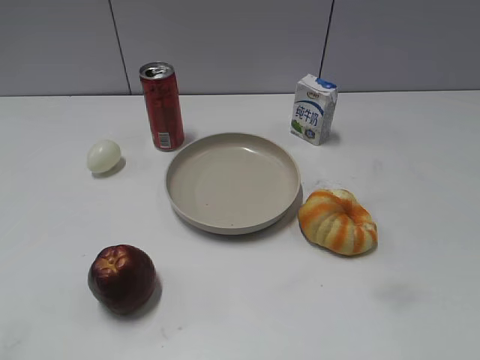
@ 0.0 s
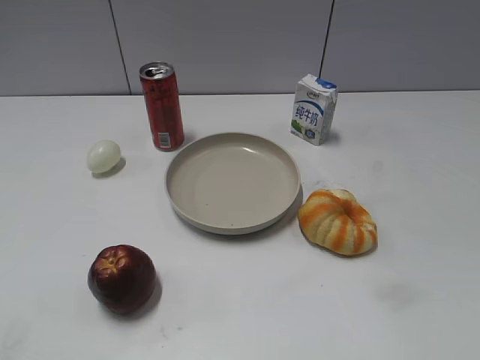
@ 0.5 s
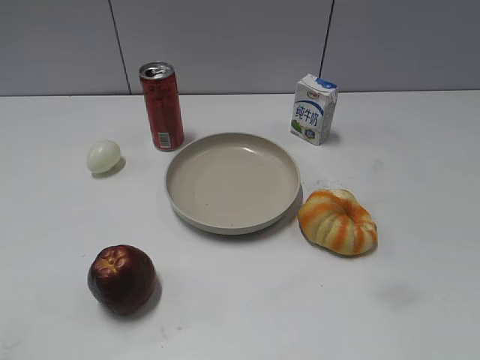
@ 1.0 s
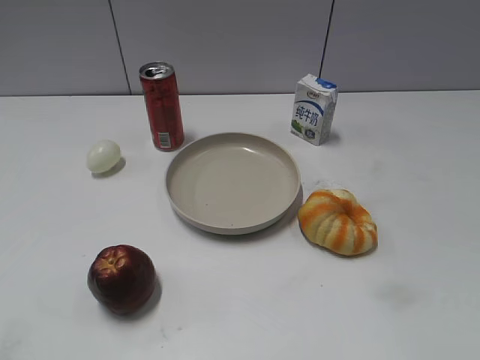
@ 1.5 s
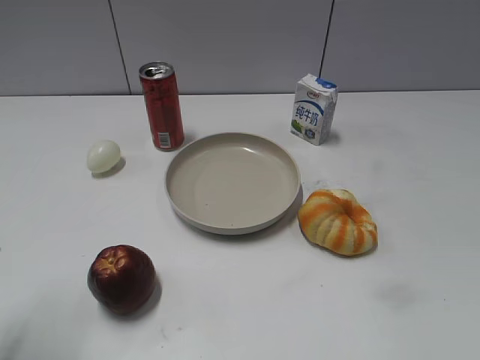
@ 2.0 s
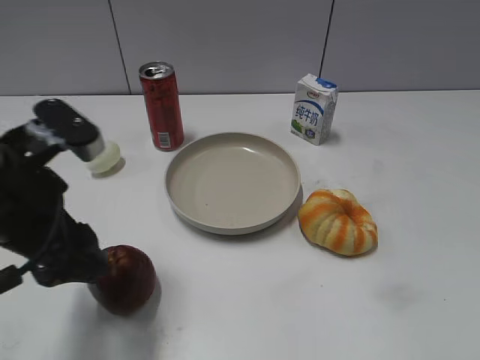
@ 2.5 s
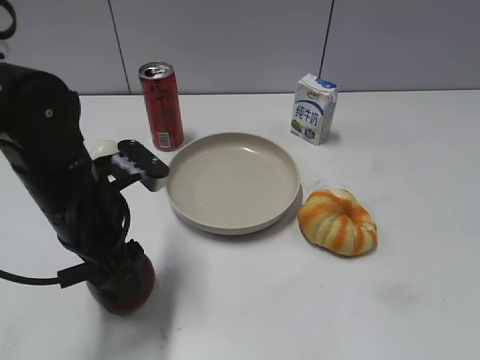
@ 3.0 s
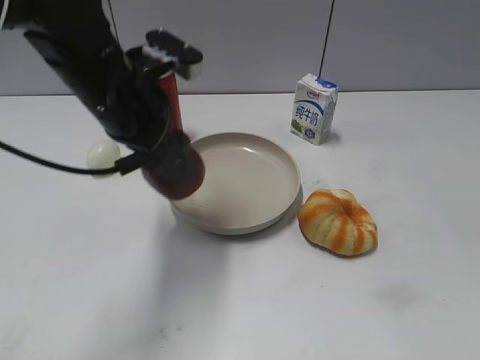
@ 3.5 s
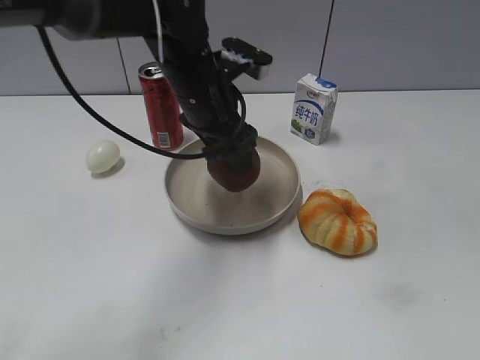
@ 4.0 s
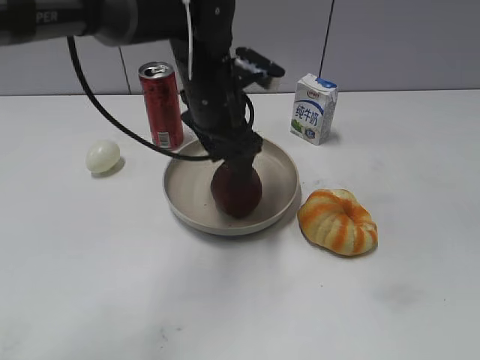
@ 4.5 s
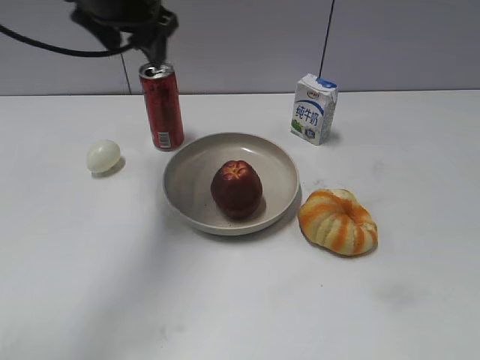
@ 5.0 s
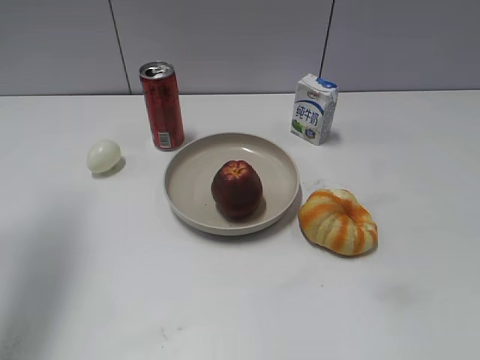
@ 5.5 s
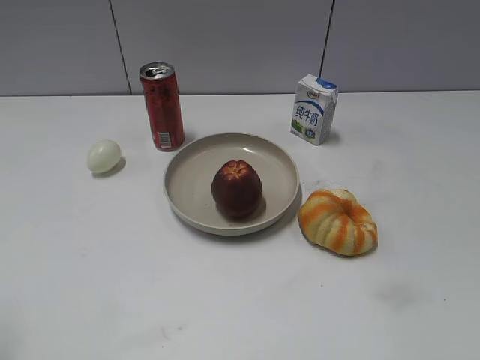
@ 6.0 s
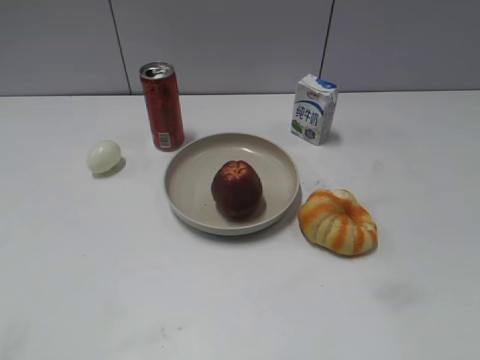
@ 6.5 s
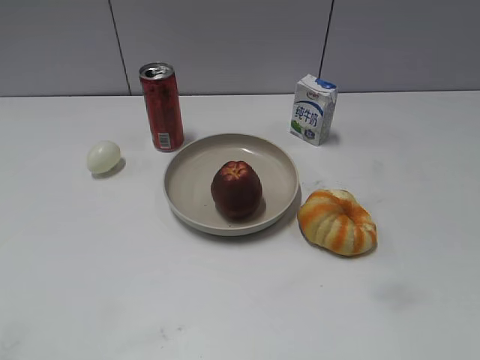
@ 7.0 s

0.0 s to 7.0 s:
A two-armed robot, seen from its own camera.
Step, 2.5 to 3.0 s: Grasp the apple with left gripper.
Step, 3.5 to 4.5 s: Place the apple on the plate with left gripper.
0.0 to 2.0 s: The left gripper goes some 20 cm forward and to the right.
2.0 to 3.5 s: The left gripper moves forward and to the right, roughly 25 cm.
3.5 to 5.0 s: The left gripper goes about 20 cm to the left and upward.
5.0 to 7.0 s: The left gripper moves backward, roughly 35 cm.

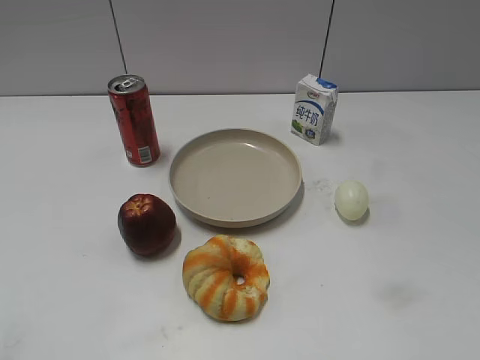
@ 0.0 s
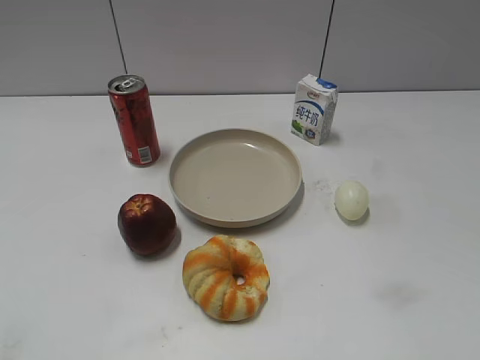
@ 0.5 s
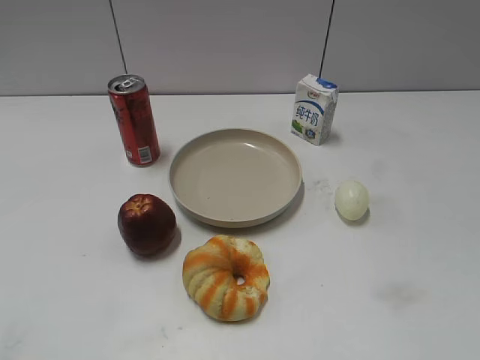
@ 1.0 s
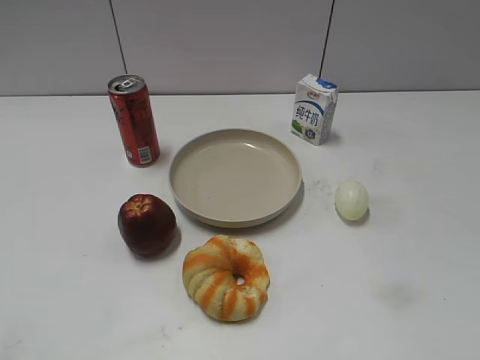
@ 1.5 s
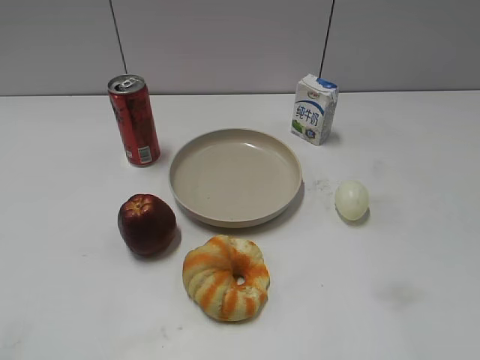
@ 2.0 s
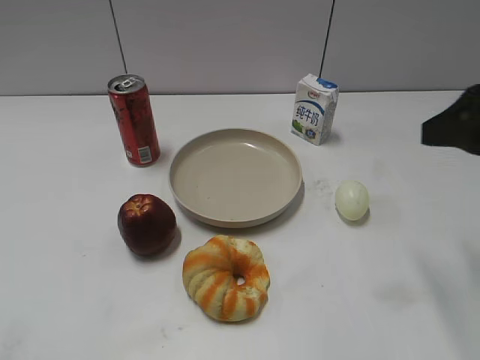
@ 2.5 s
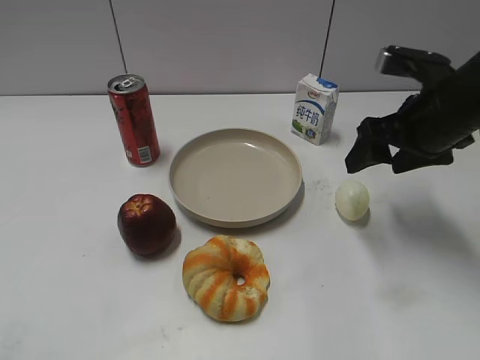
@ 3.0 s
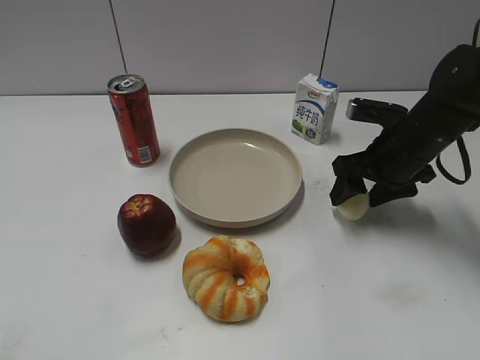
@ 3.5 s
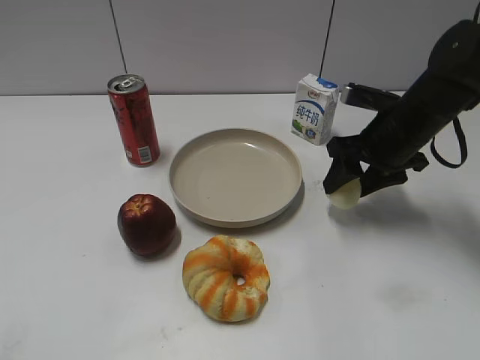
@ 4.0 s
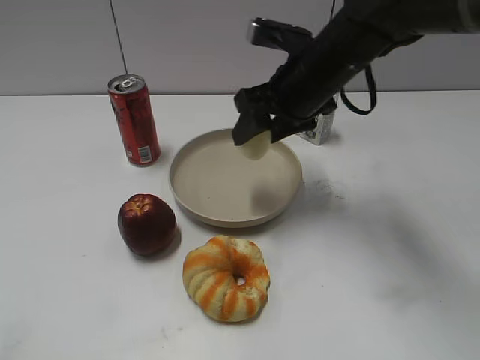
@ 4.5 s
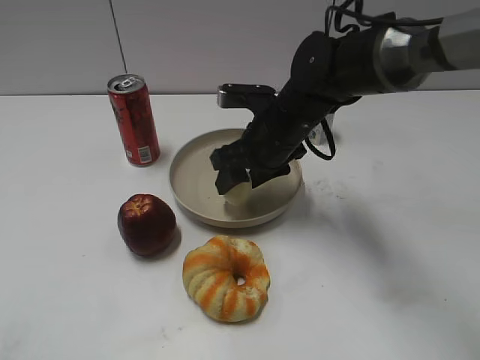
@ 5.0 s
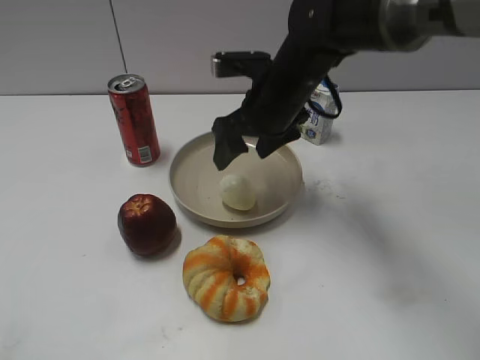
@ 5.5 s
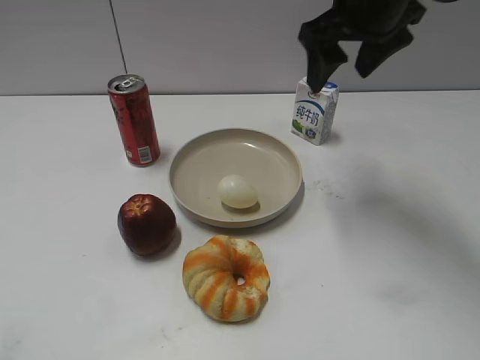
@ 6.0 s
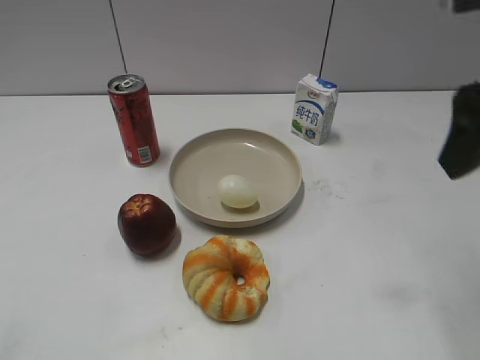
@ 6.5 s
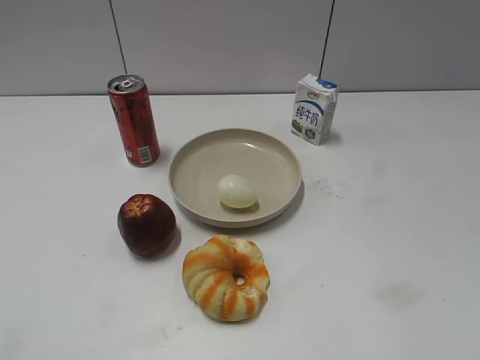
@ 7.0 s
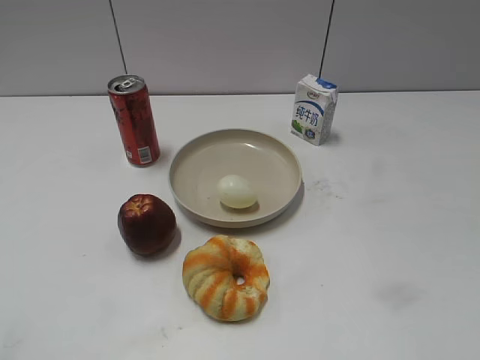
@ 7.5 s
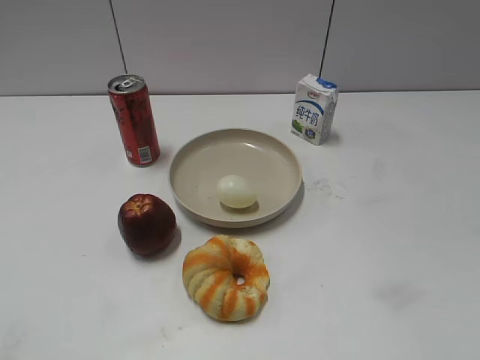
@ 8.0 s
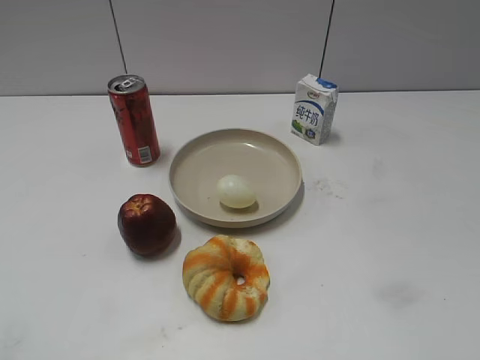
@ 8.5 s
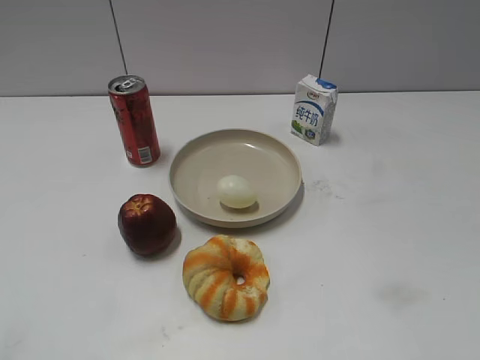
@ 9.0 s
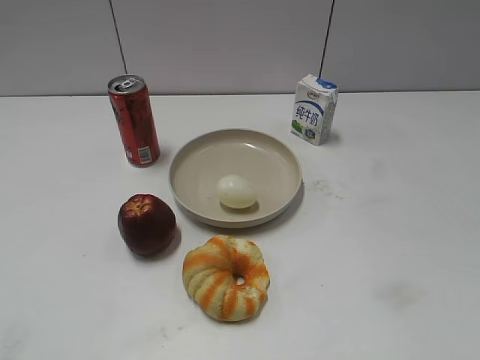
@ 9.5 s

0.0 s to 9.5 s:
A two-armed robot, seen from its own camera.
Step, 1.5 to 3.5 s: Grasp the egg with right gripper.
Step, 4.0 to 5.5 s: Place the egg on the plate with right gripper.
2.0 to 4.0 s: The right gripper travels forward and downward by roughly 35 cm, and closes.
4.0 to 5.5 s: The right gripper moves to the left, some 15 cm, and opens its fingers.
5.5 to 7.5 s: The right gripper moves backward and to the right, approximately 40 cm.

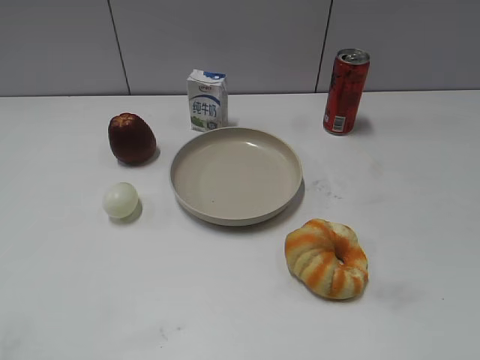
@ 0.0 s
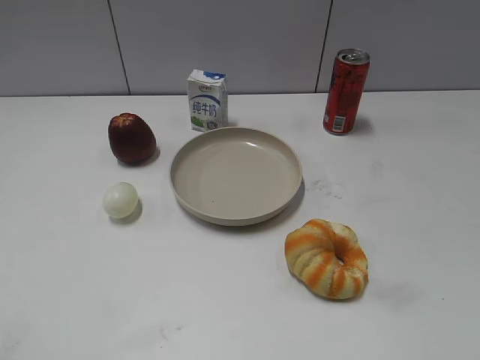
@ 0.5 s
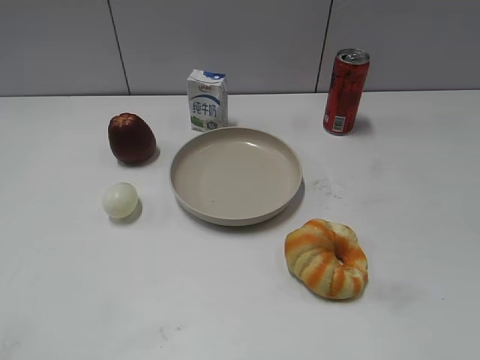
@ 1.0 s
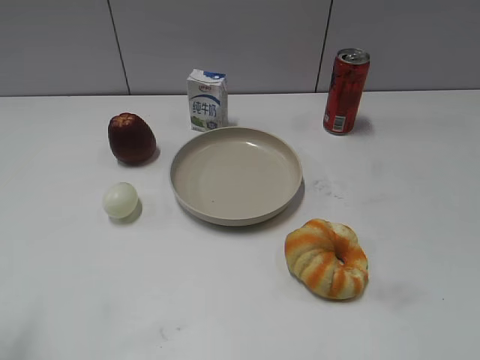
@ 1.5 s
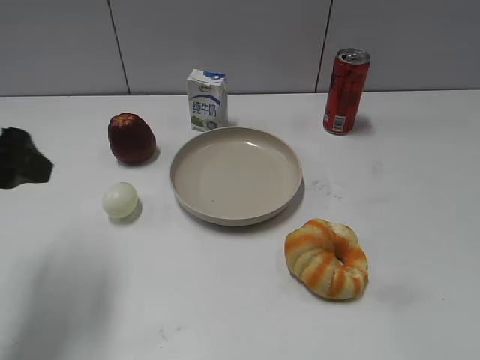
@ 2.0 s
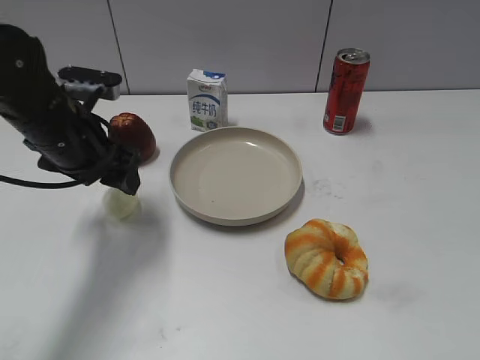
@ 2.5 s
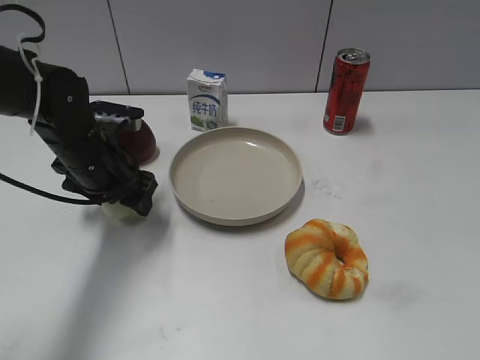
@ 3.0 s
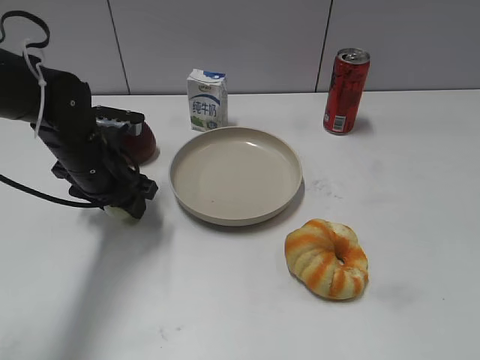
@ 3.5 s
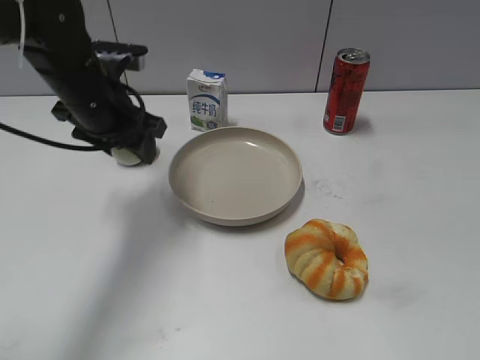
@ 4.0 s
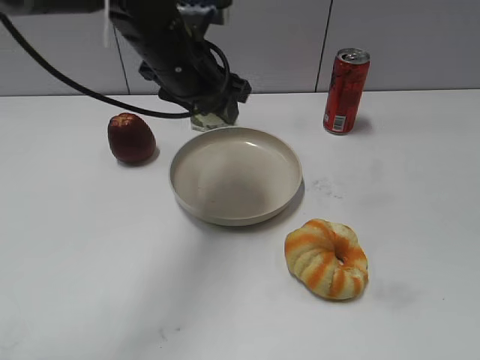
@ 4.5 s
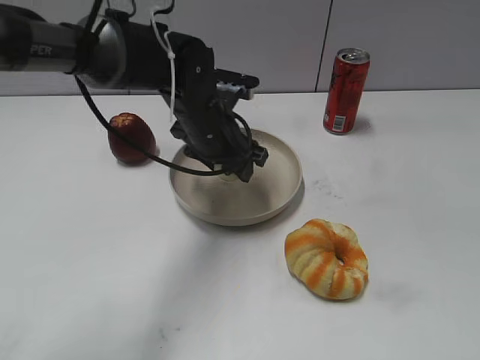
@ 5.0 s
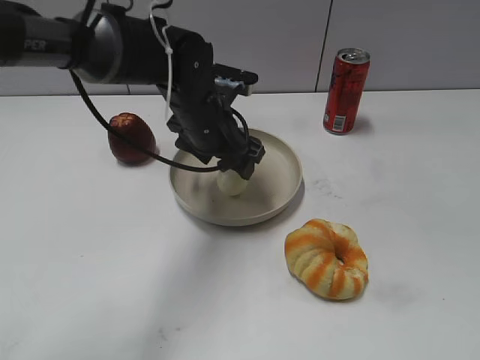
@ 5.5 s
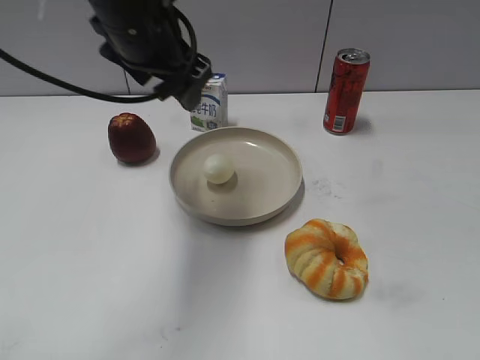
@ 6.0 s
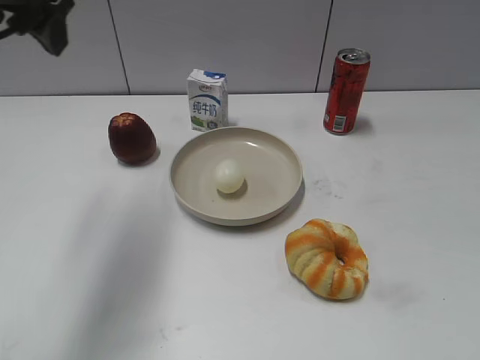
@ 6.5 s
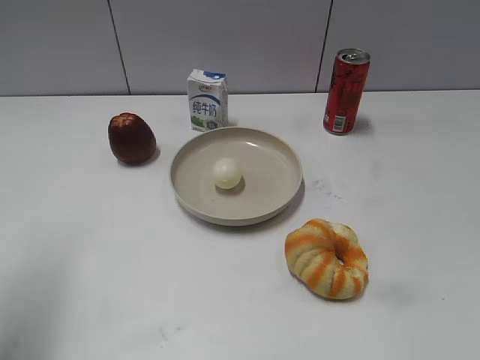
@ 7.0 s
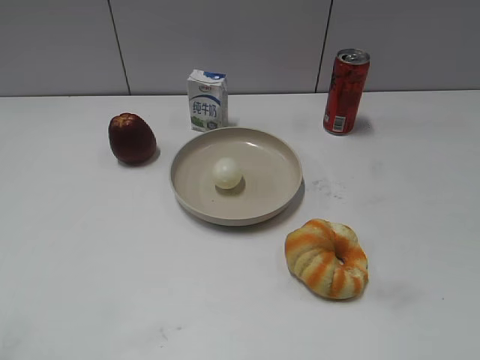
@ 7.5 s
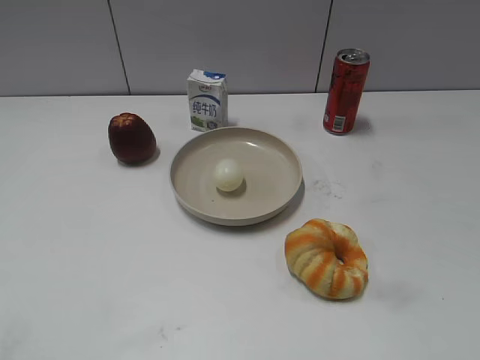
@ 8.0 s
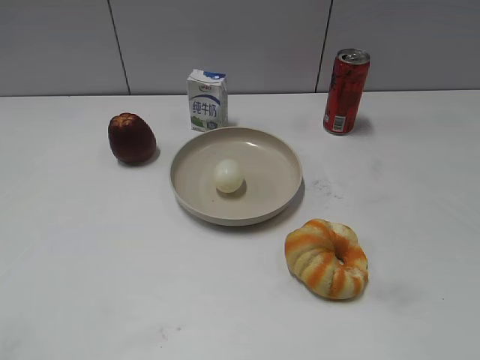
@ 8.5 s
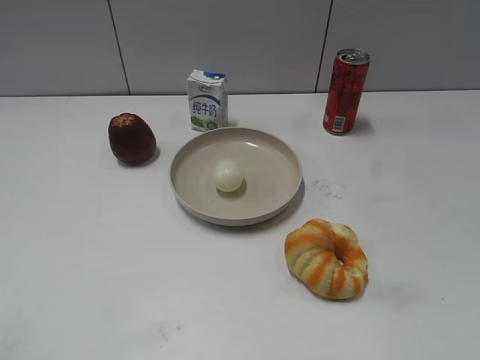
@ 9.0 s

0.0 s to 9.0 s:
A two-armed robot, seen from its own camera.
2.0 to 4.5 s: The left gripper moves to the right and forward, roughly 25 cm, and closes its fingers.
4.5 to 7.0 s: The left gripper travels to the left, backward and upward by approximately 25 cm, and opens up.
7.0 to 9.0 s: The left gripper heads backward, covering some 20 cm.
